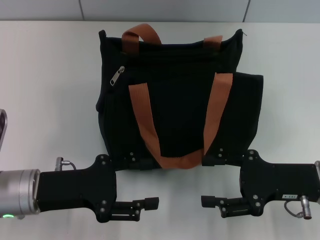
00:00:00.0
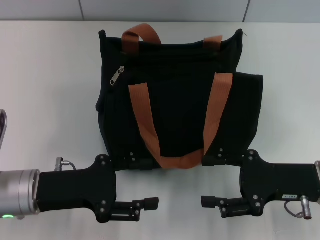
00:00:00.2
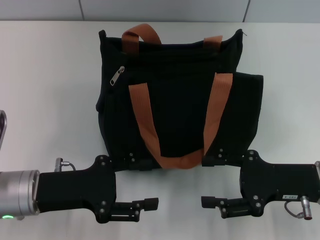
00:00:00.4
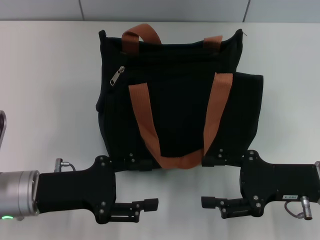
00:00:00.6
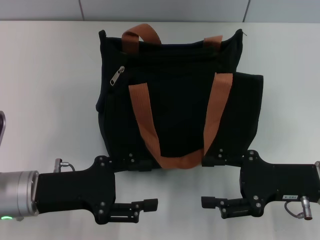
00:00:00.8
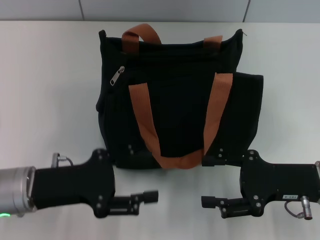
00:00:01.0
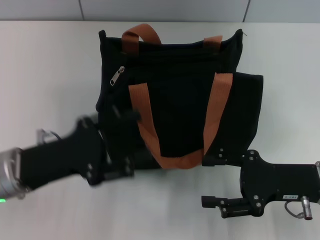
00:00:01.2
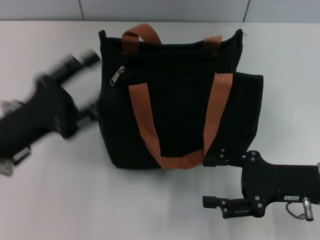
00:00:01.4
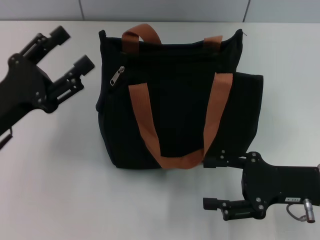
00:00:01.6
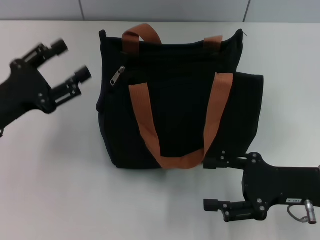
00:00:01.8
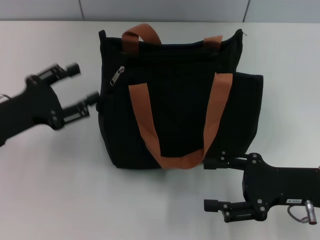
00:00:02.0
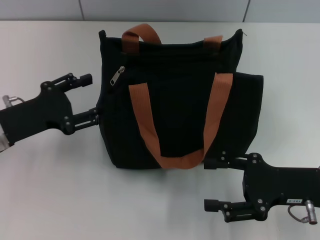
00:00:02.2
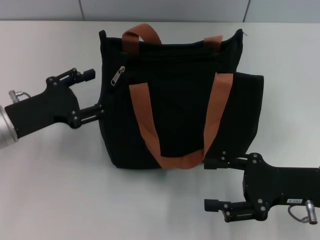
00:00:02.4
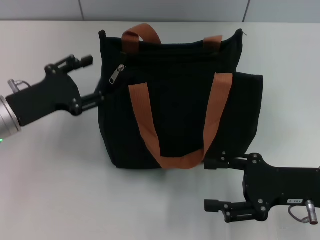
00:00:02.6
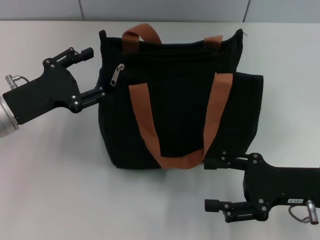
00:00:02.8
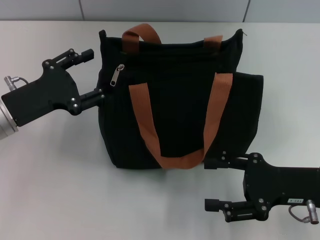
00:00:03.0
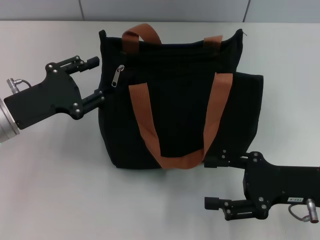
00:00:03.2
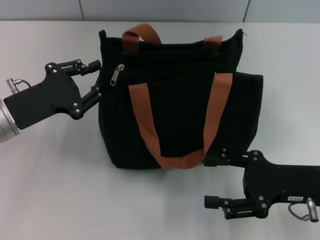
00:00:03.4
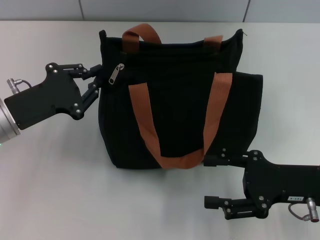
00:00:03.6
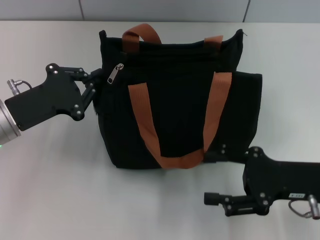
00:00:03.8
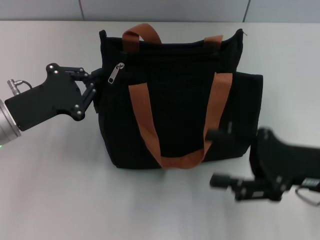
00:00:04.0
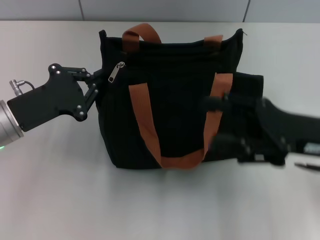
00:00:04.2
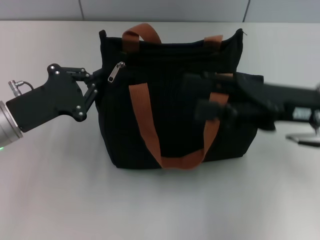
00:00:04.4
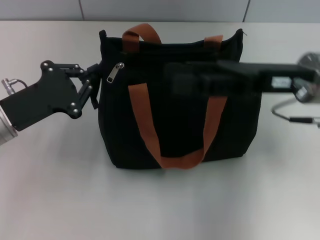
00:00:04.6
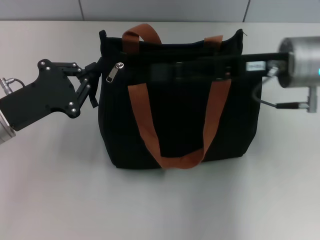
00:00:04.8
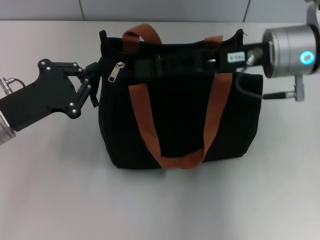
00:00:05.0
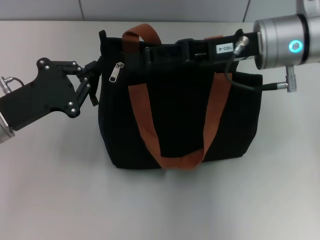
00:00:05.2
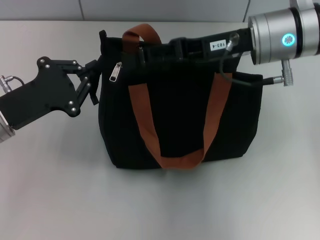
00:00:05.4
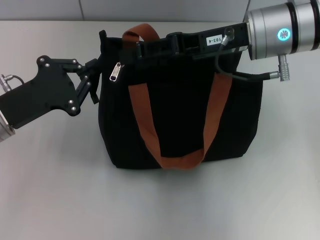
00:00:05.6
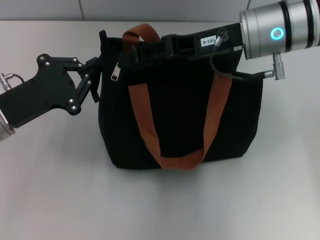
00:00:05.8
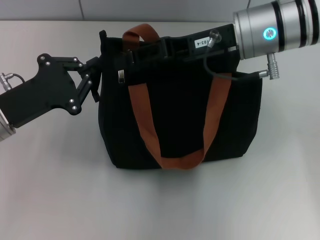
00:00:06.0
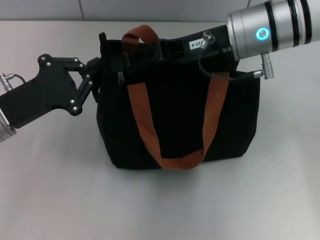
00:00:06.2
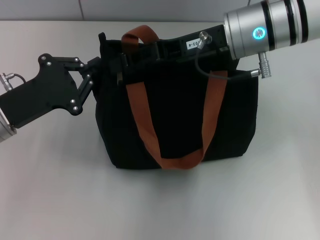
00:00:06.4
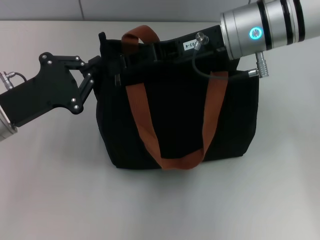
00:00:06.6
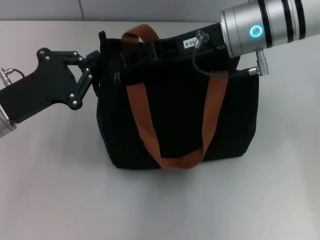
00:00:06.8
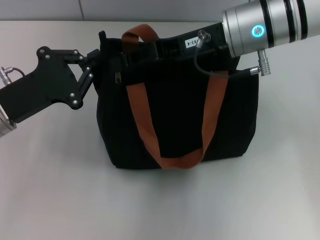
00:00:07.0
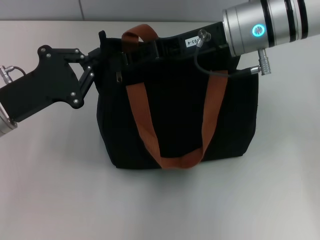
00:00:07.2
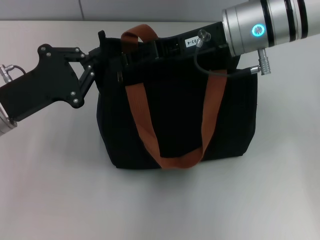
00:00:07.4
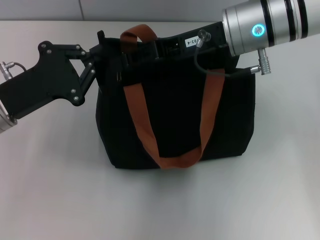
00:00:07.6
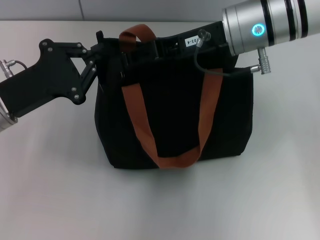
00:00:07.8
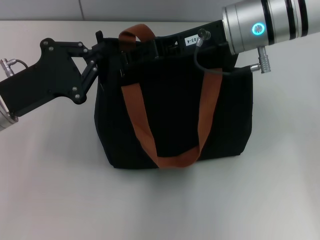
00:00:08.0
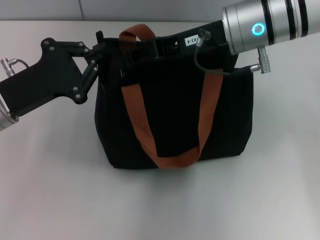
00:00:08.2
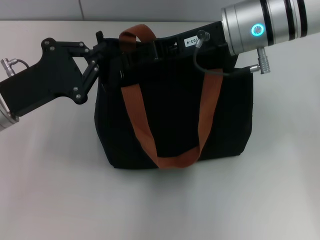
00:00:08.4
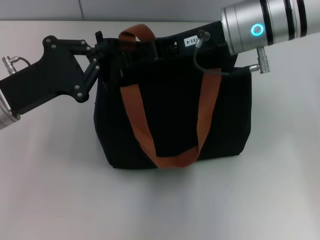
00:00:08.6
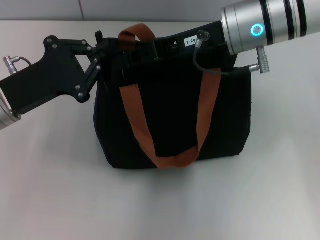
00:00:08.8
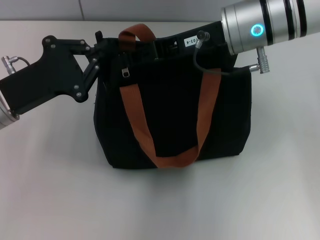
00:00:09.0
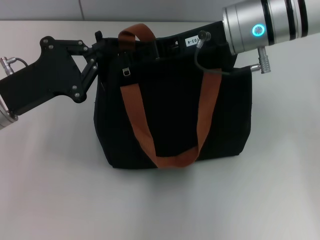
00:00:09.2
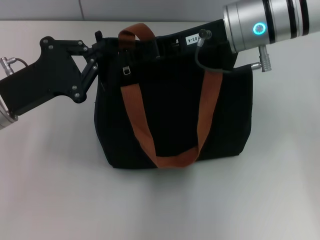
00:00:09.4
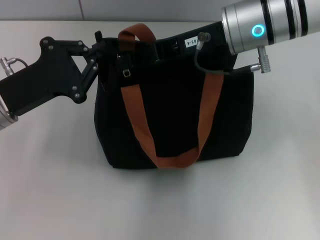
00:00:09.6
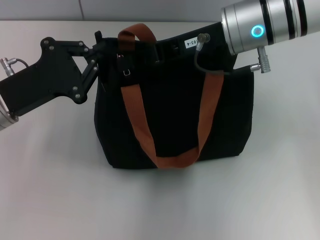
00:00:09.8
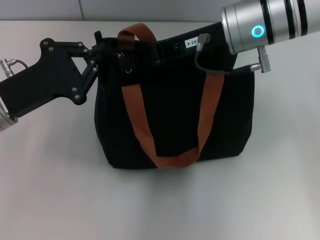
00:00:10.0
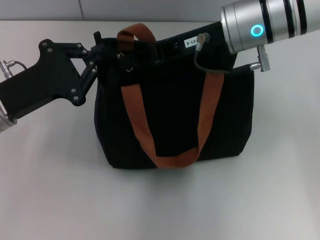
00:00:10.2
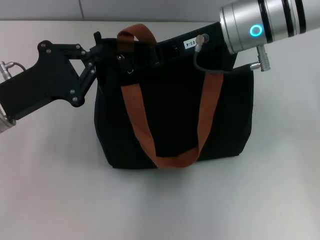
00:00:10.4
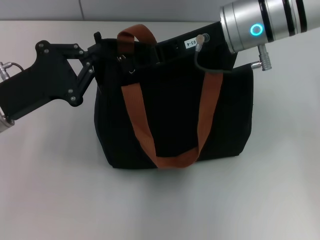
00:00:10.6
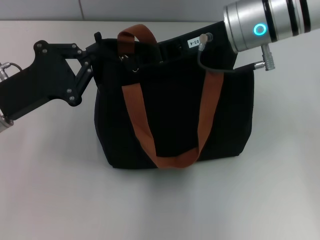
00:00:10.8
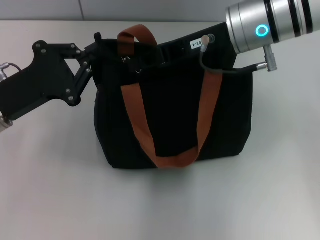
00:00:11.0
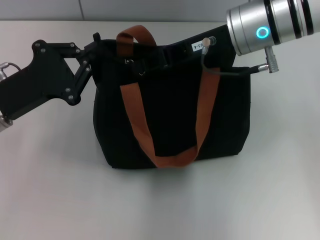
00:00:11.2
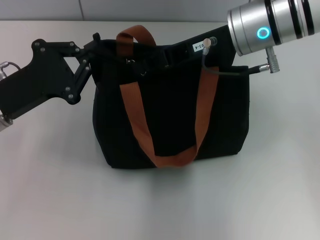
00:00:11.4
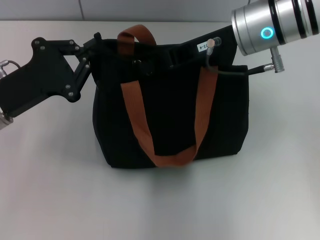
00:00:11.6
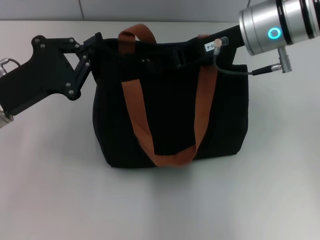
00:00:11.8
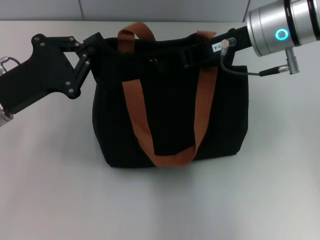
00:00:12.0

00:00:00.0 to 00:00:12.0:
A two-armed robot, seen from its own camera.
00:00:00.0 to 00:00:01.6: The left gripper ends up roughly 5 cm from where it was.
00:00:03.0 to 00:00:04.4: The left gripper closes its fingers; the right gripper travels upward and forward by approximately 10 cm.
00:00:04.4 to 00:00:06.0: The right gripper goes approximately 10 cm to the left and forward.
00:00:06.0 to 00:00:07.6: The grippers stay close to where they were, moving slightly.
00:00:07.6 to 00:00:09.0: Neither gripper changes place.
00:00:09.0 to 00:00:10.4: The right gripper closes its fingers.
00:00:10.4 to 00:00:12.0: There are only small adjustments of the grippers.

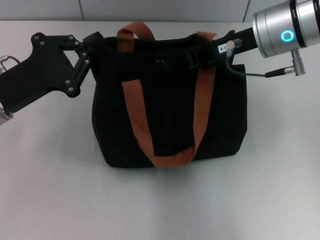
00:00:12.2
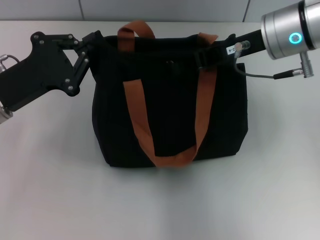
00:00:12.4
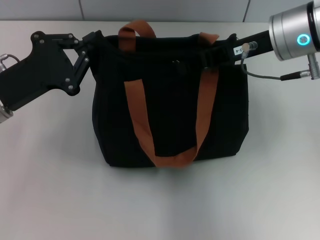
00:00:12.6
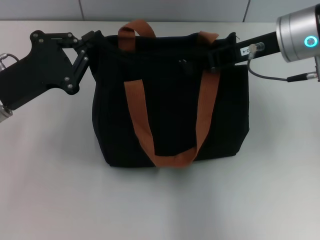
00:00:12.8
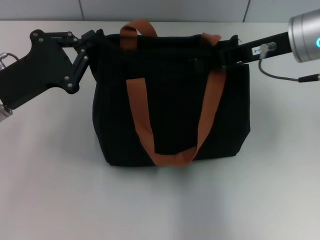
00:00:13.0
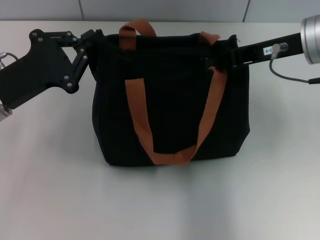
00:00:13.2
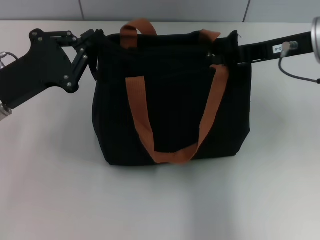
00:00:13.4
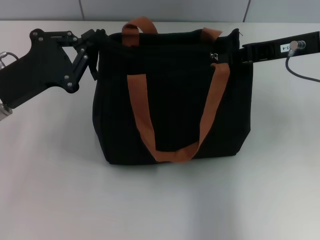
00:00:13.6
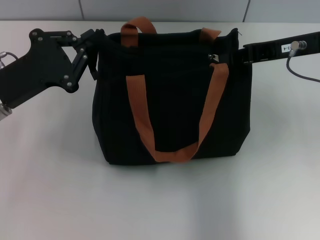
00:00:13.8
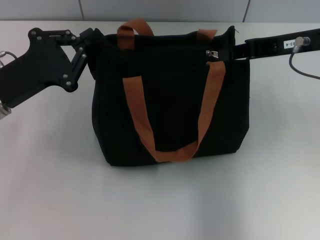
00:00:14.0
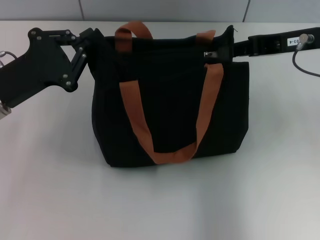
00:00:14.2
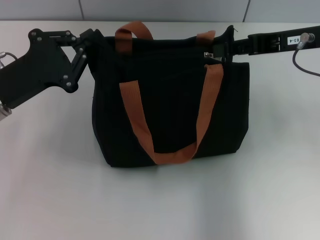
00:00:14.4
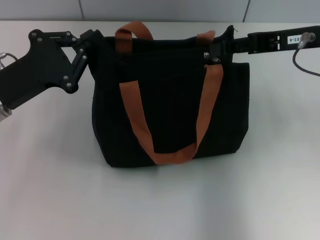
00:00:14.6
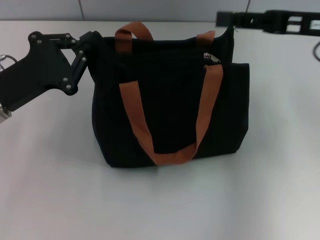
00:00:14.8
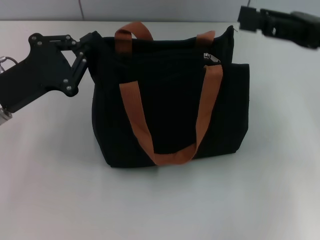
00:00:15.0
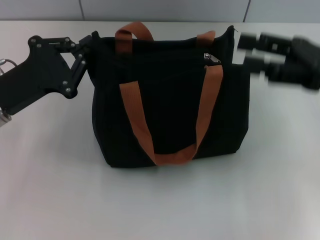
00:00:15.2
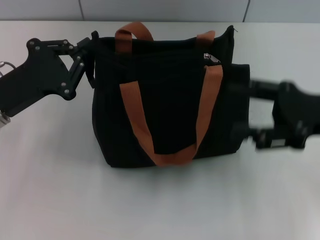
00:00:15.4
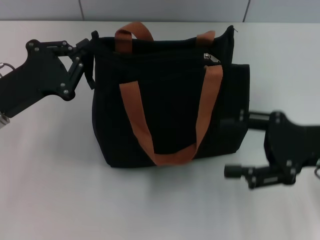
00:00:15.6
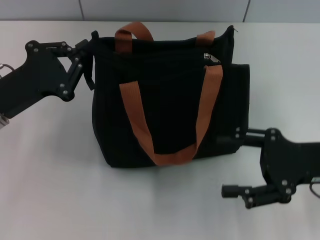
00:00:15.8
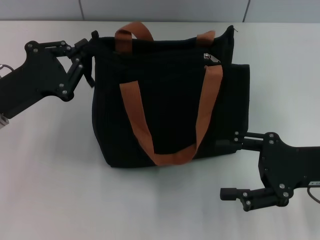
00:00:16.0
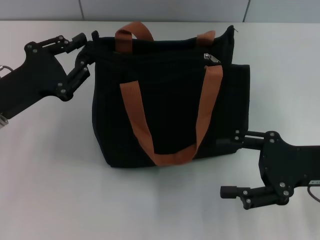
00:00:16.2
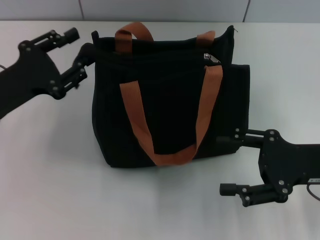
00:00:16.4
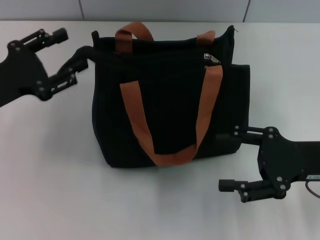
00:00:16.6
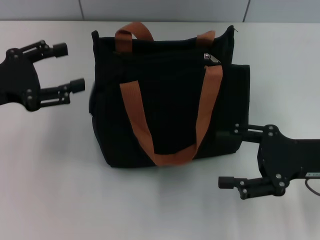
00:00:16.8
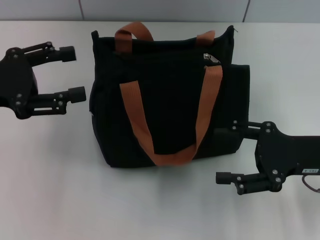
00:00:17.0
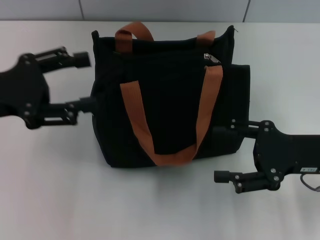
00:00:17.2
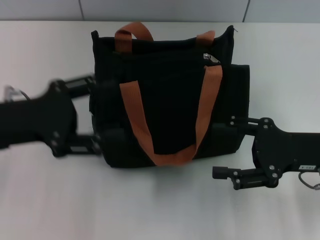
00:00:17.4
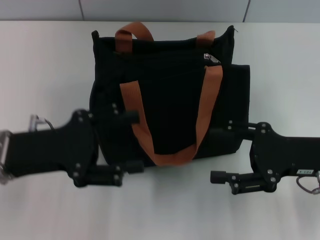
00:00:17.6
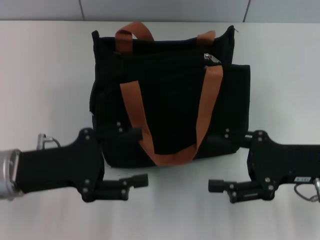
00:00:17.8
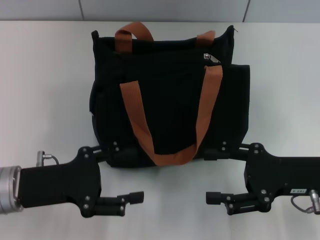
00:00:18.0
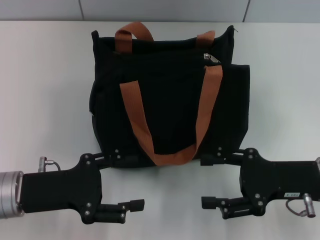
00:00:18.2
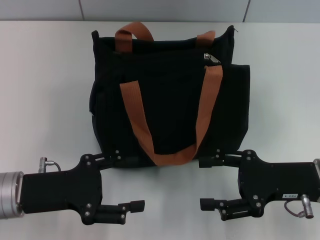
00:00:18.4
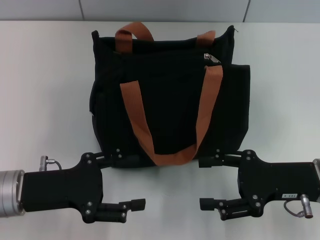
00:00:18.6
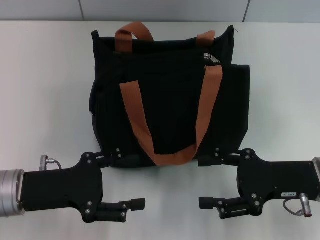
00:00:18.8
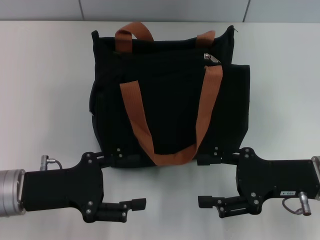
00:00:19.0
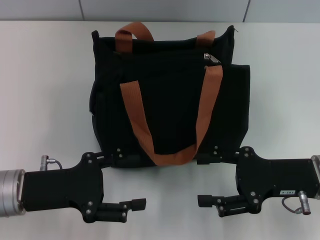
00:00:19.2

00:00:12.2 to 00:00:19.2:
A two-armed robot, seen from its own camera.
Step, 00:00:12.2 to 00:00:14.8: Pull up the zipper with your right hand.
Step, 00:00:15.0 to 00:00:16.6: Grab the zipper with your left hand.
00:00:12.2 to 00:00:13.6: The right gripper moves to the right, about 5 cm.
00:00:13.6 to 00:00:15.0: The right gripper ends up approximately 5 cm from where it was, and opens its fingers.
00:00:15.0 to 00:00:16.4: The left gripper opens up. Meanwhile the right gripper is displaced downward and backward by approximately 10 cm.
00:00:16.4 to 00:00:17.8: The left gripper travels backward by some 5 cm, moves about 5 cm upward and comes back, and opens its fingers.
00:00:17.8 to 00:00:19.2: The grippers stay close to where they were, moving slightly.
